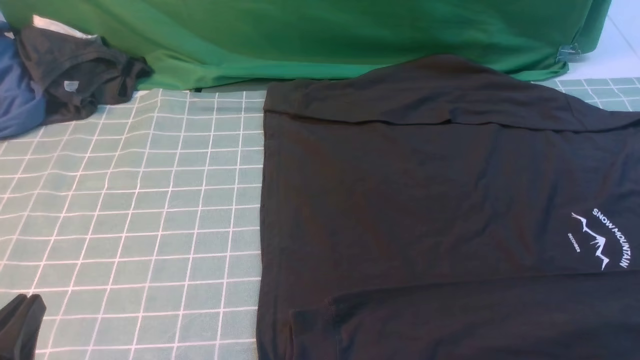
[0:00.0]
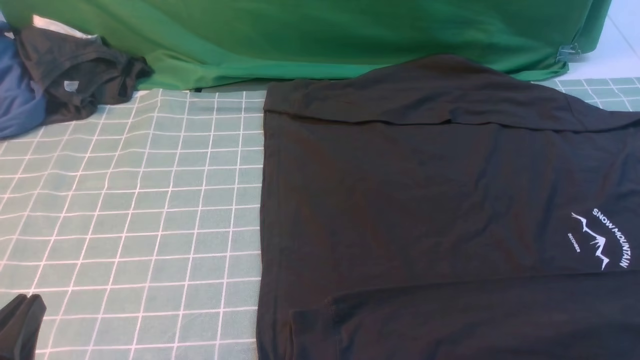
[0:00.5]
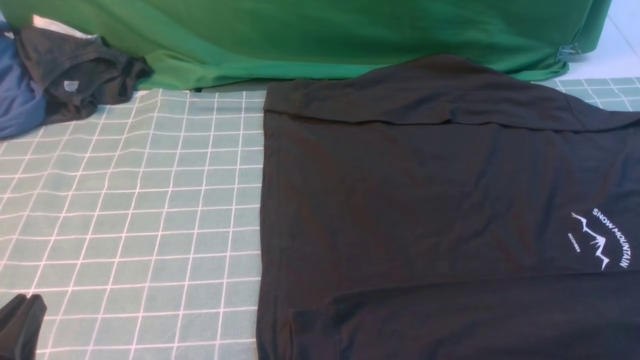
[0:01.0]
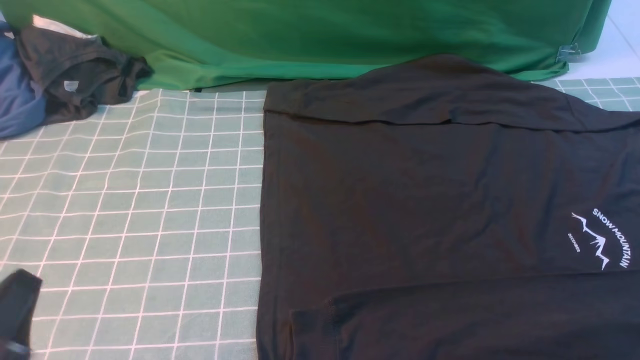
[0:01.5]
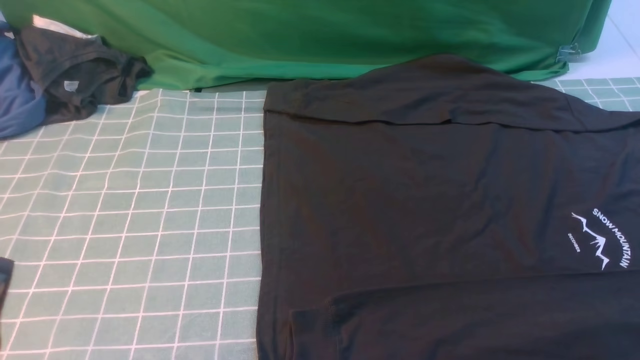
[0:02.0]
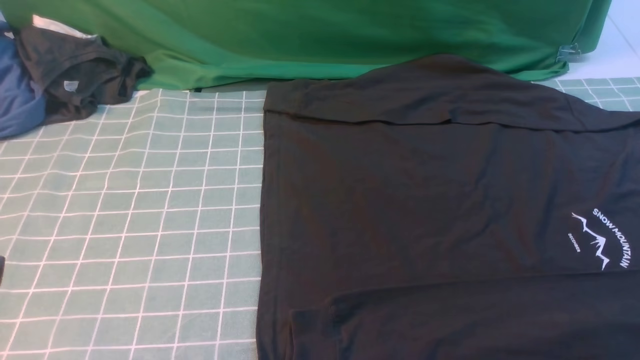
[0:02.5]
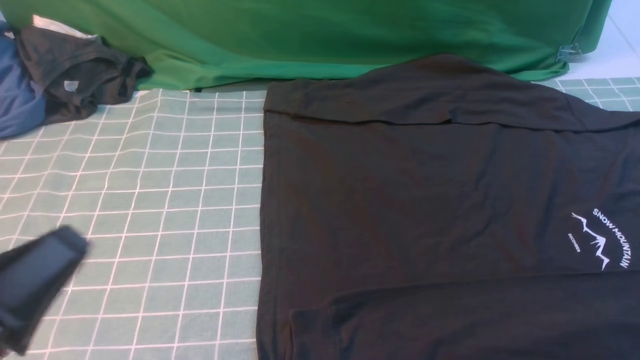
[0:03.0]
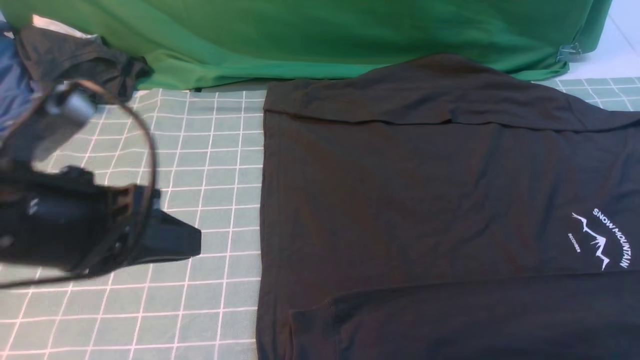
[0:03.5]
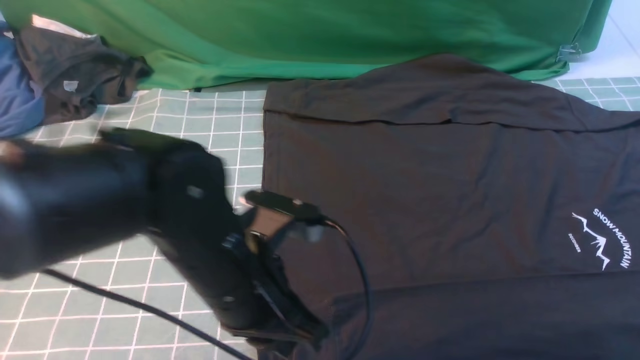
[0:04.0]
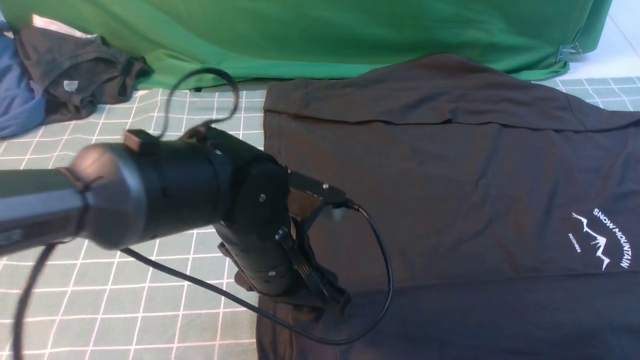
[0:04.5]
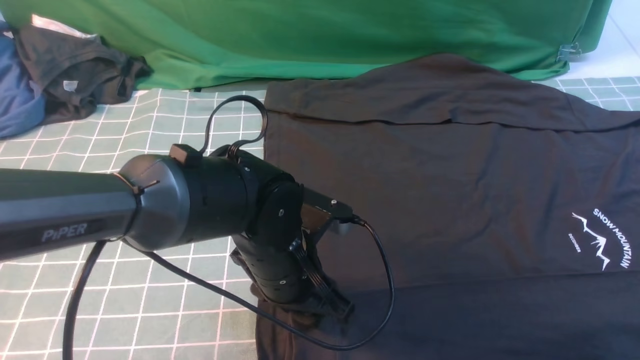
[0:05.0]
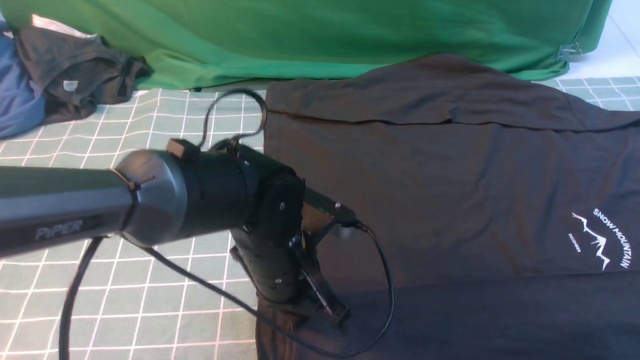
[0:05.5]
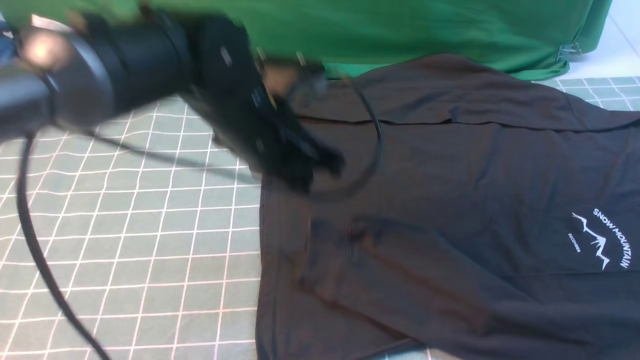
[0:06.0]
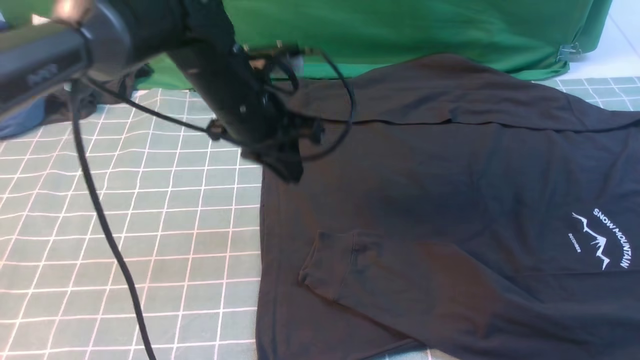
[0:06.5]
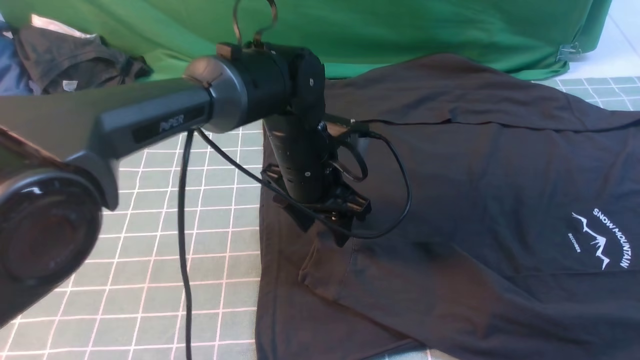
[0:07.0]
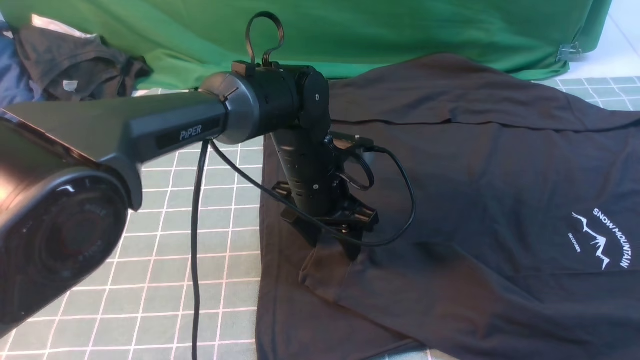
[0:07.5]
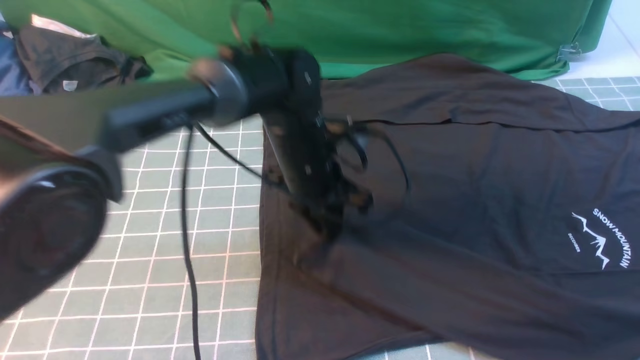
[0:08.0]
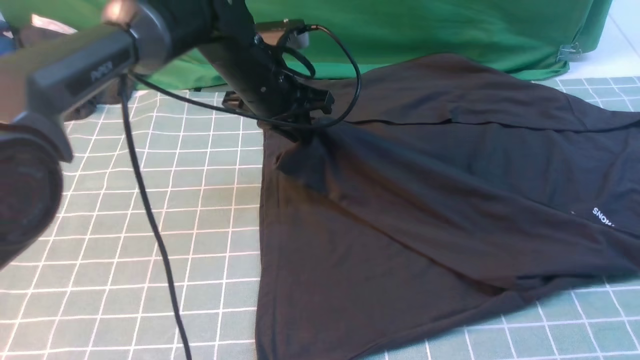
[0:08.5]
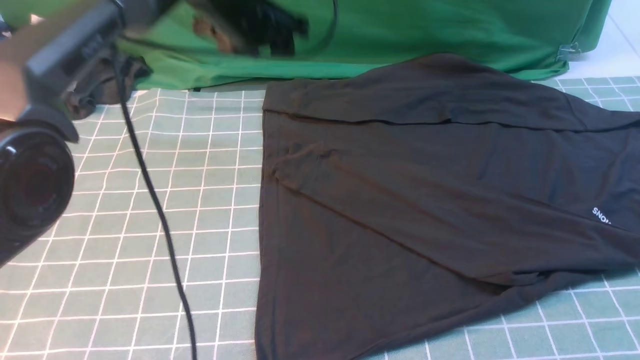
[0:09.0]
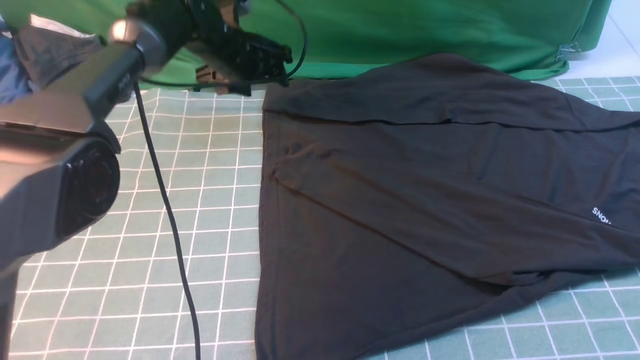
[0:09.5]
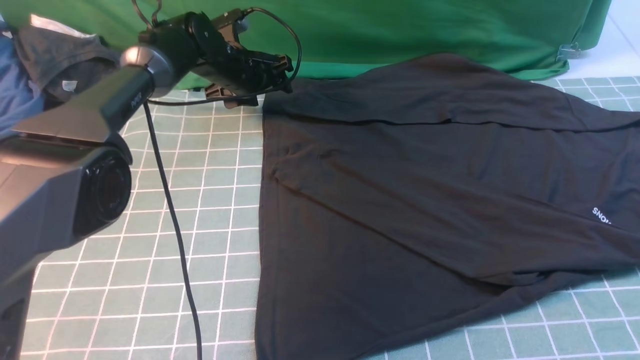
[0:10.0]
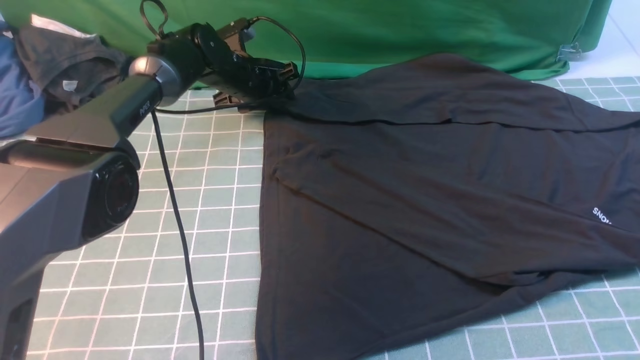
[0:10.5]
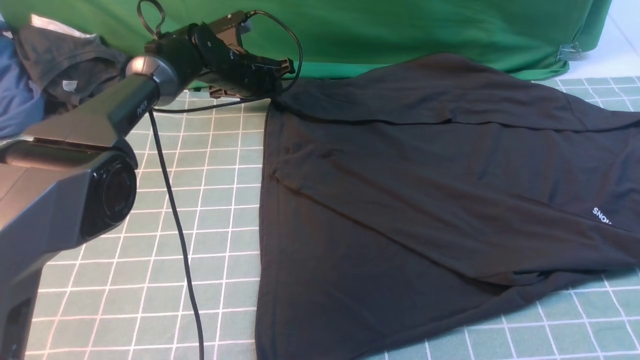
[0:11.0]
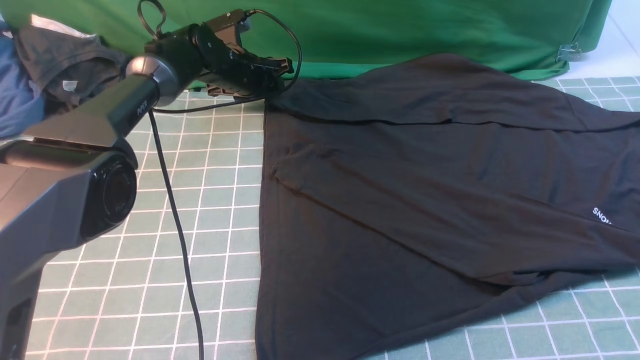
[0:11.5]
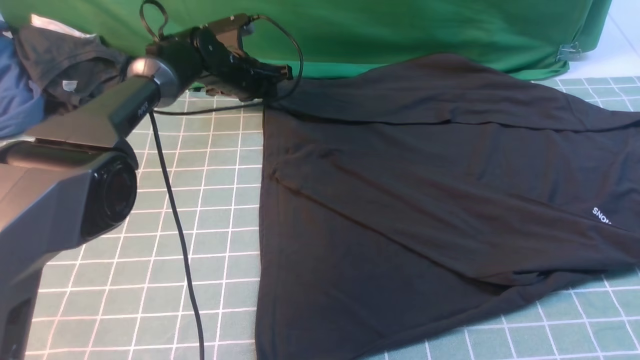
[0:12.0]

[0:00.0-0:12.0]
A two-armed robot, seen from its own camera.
Step, 0:00.0 to 0:05.5: use the left arm to clamp the cuff closest to it.
Step, 0:06.0 to 0:09.0: use the left arm to drag and place the cuff at the centered position on the left edge of the fabric.
0:02.0 to 0:04.0: The left gripper shifts roughly 25 cm to the right and forward; the right gripper goes approximately 15 cm upward and forward, and closes its fingers.
0:04.0 to 0:06.0: The left gripper goes roughly 10 cm forward, and opens and closes again.
0:06.0 to 0:08.0: The left gripper shifts roughly 5 cm downward, and opens and closes again.
0:08.0 to 0:10.0: The left gripper shifts roughly 20 cm forward and to the left, and opens.
0:10.0 to 0:12.0: The left gripper closes.

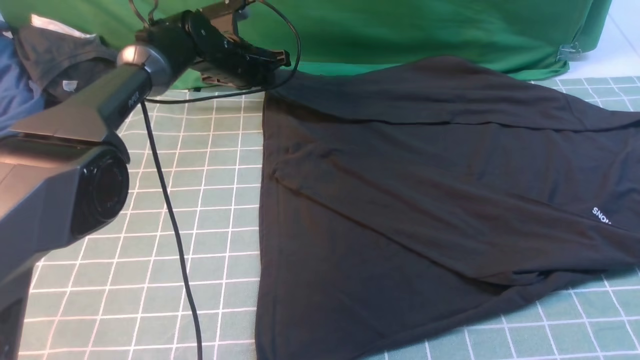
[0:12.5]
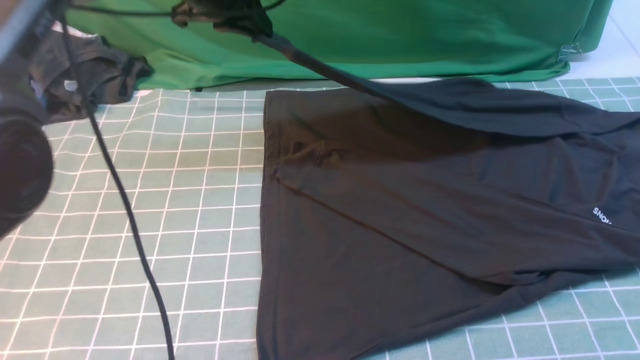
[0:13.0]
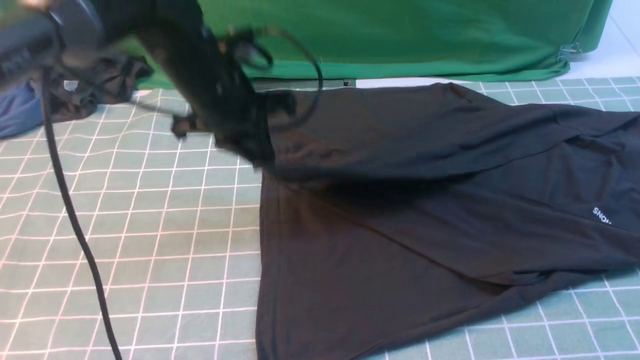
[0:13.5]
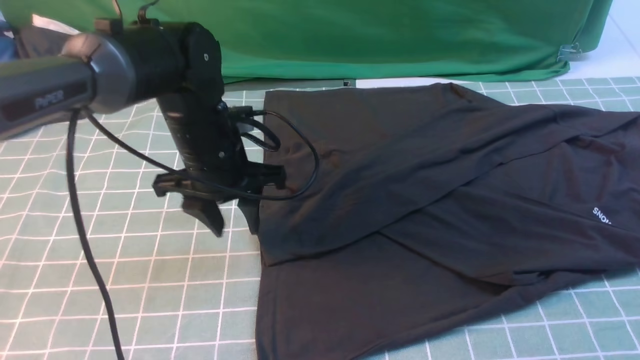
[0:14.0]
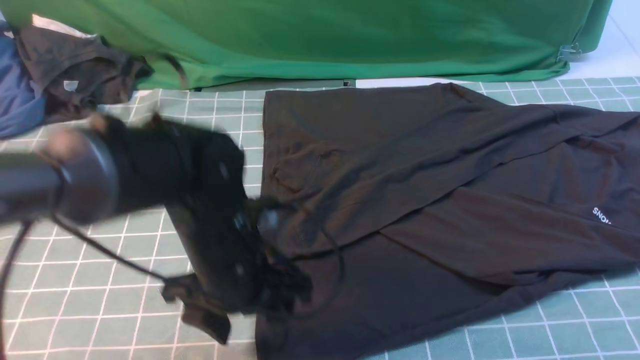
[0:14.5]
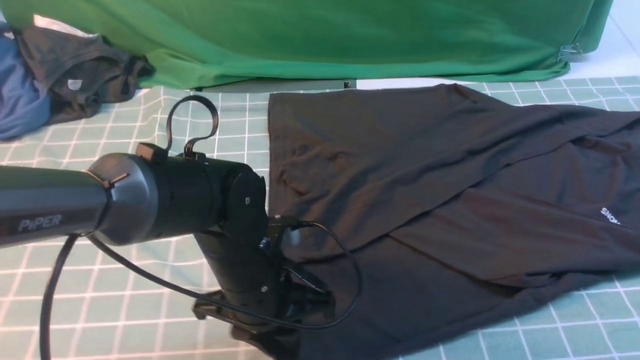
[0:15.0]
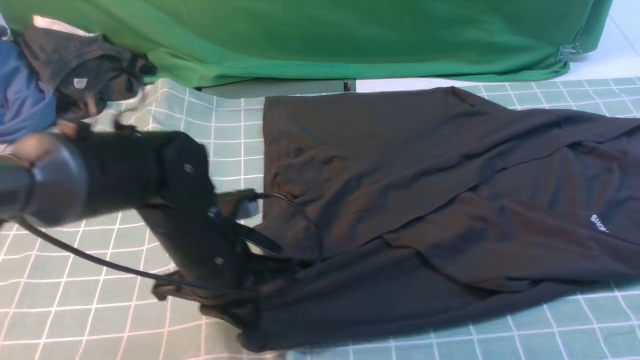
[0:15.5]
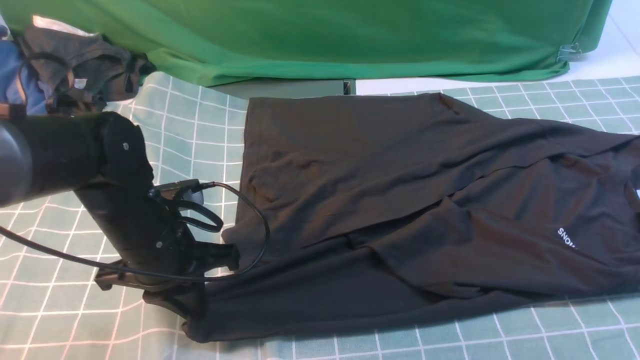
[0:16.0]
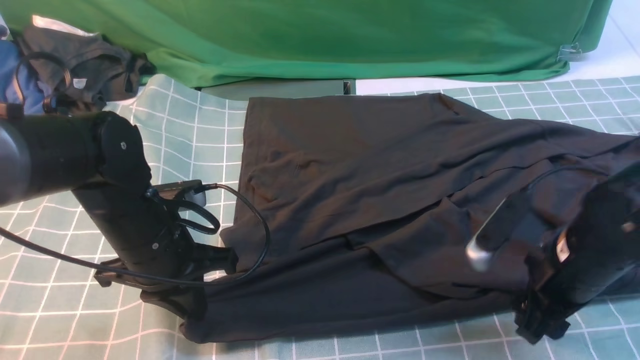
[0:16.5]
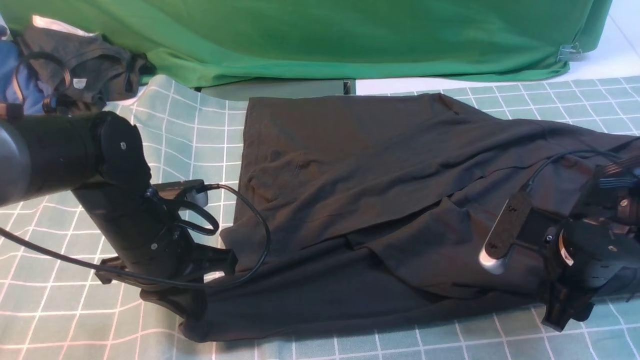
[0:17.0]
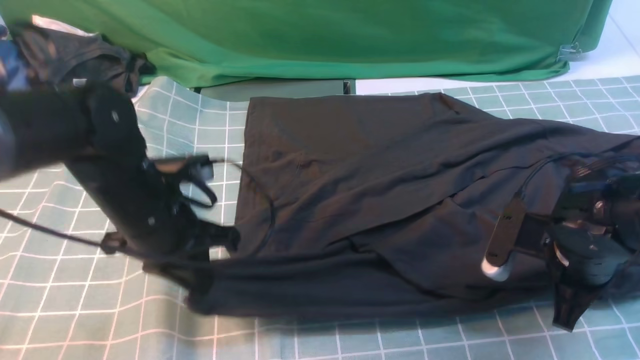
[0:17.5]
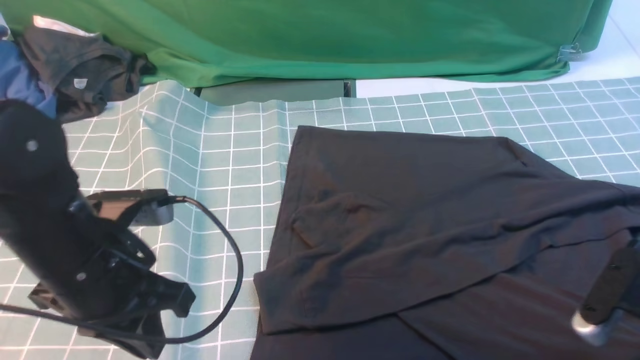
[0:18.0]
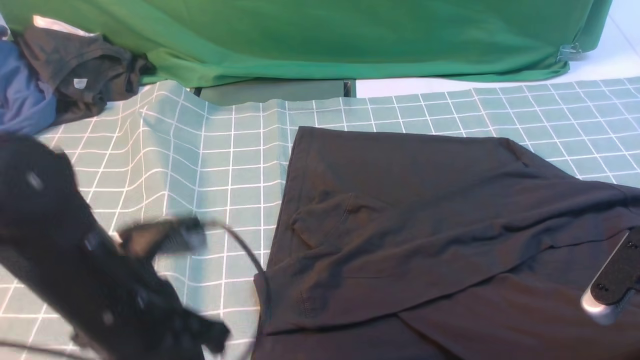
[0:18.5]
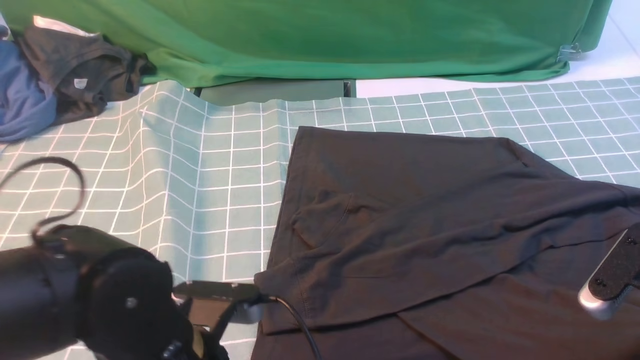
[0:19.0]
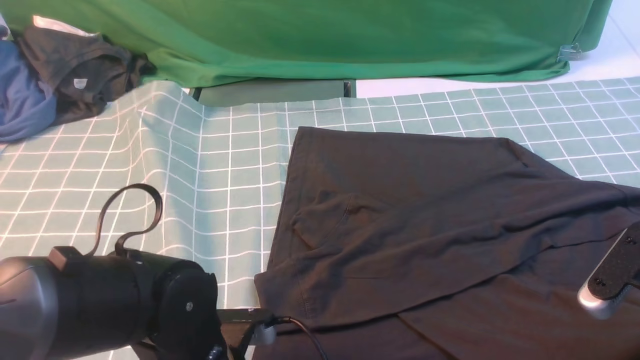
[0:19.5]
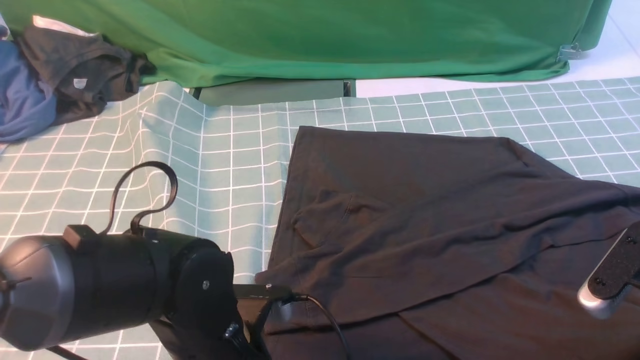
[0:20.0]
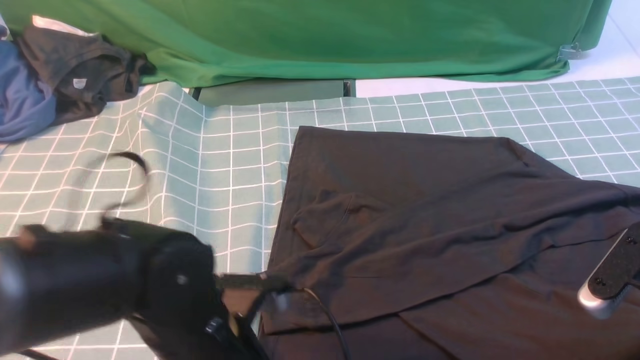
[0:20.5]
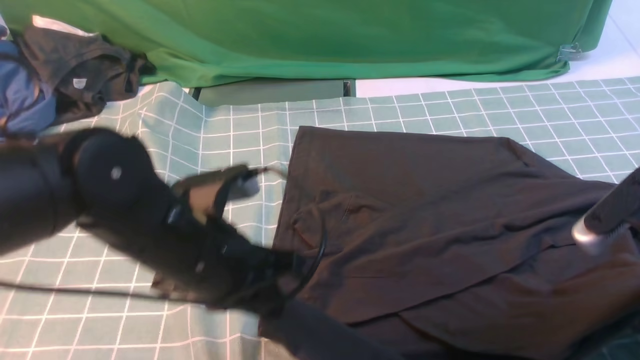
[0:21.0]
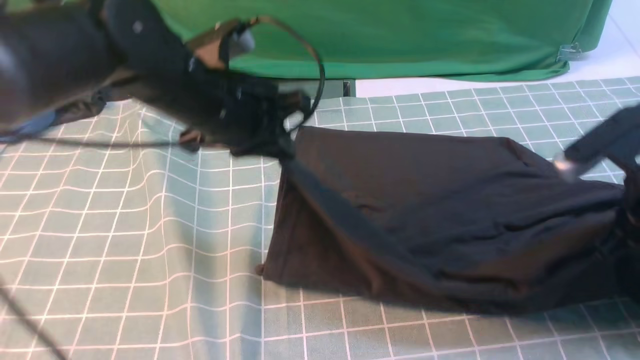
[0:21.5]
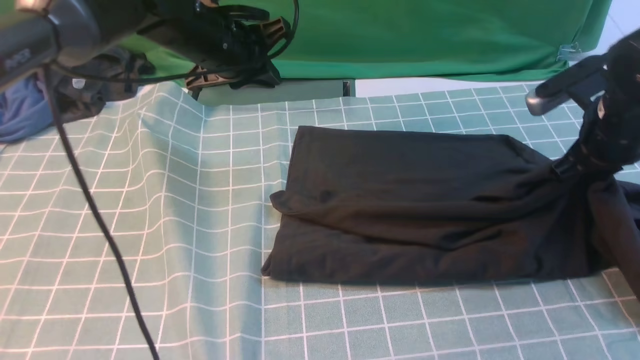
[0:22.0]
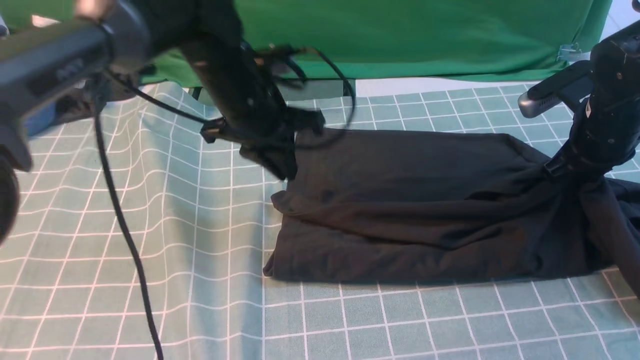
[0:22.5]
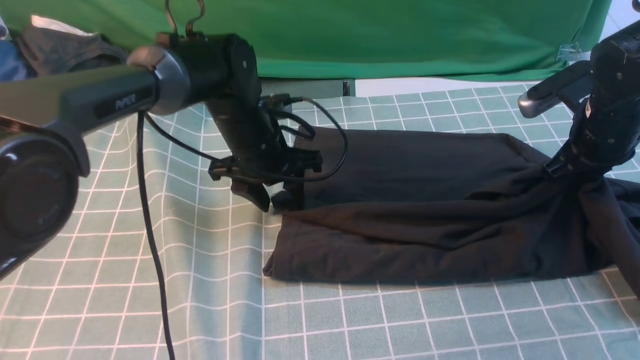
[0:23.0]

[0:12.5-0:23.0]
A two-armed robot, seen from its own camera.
Step, 0:13.0 to 0:14.0: use the left arm to drag and drop the cuff onto the cuff closest to the left arm.
Step, 0:14.5 to 0:20.5: use both arms simultaneously to clamp the lower edge of the clothing fabric.
0:12.5 to 0:14.5: The left gripper is displaced backward by approximately 30 cm, and opens.
0:14.5 to 0:16.5: The left gripper travels to the left by some 10 cm, and closes. The right gripper shifts about 20 cm downward, to the left and forward, and opens.
0:16.5 to 0:19.0: The right gripper shifts roughly 10 cm backward, upward and to the right, and closes its fingers. The left gripper goes some 15 cm backward and to the right, and opens.
0:19.0 to 0:21.0: The left gripper travels forward and upward by some 10 cm, and closes up.
0:21.0 to 0:23.0: Both grippers move forward, roughly 20 cm. The left gripper opens up.
